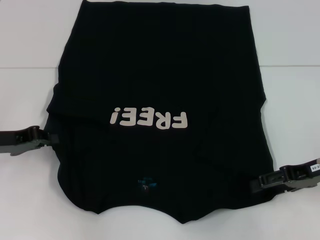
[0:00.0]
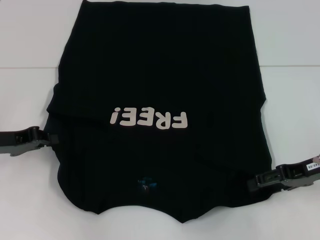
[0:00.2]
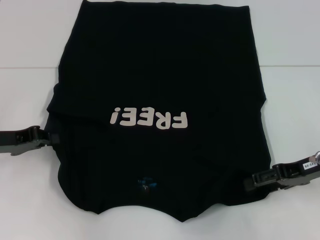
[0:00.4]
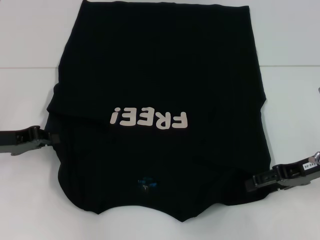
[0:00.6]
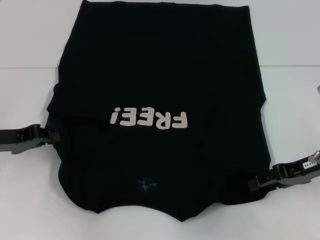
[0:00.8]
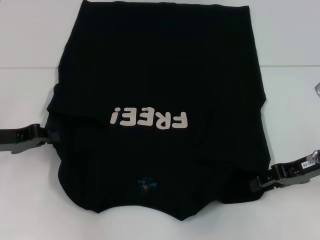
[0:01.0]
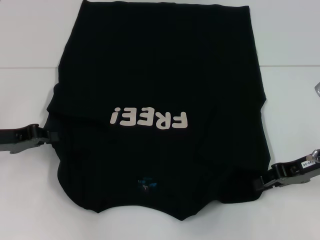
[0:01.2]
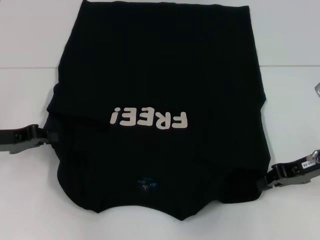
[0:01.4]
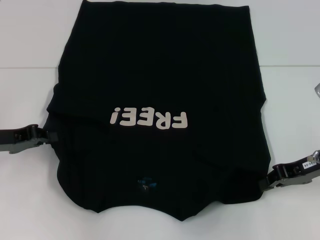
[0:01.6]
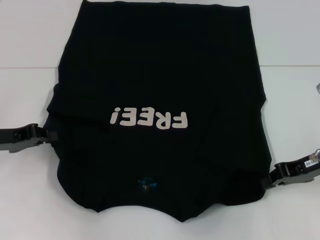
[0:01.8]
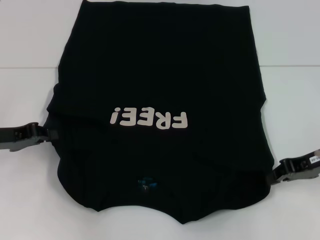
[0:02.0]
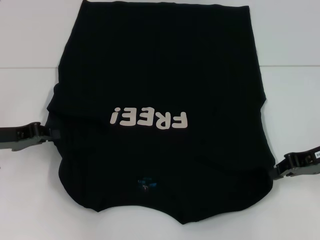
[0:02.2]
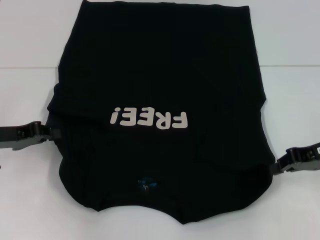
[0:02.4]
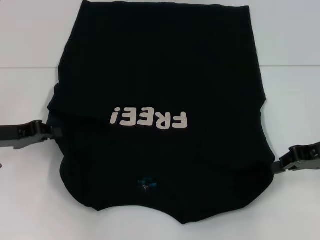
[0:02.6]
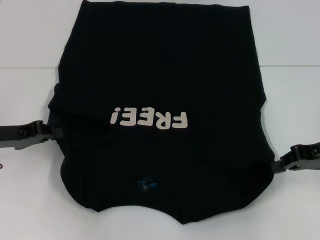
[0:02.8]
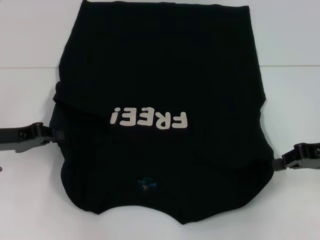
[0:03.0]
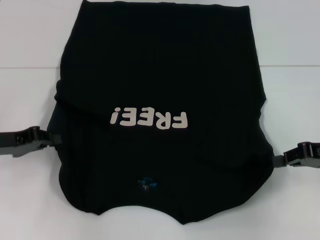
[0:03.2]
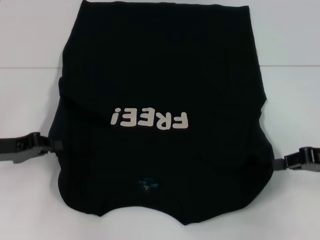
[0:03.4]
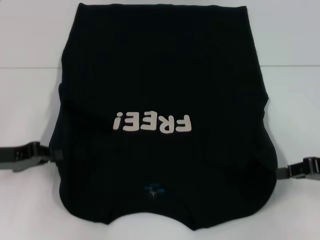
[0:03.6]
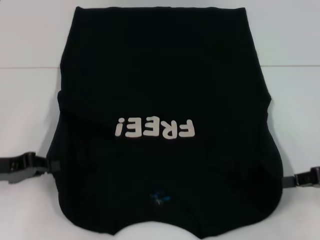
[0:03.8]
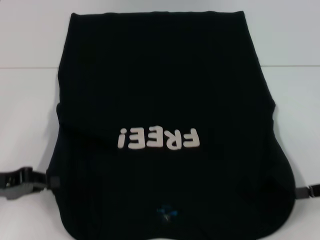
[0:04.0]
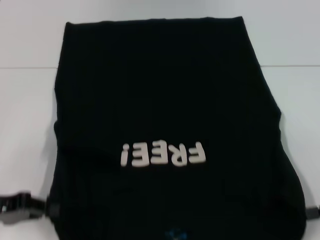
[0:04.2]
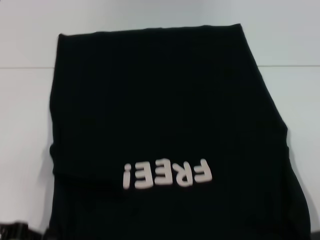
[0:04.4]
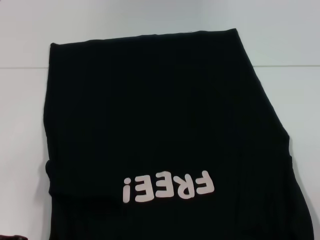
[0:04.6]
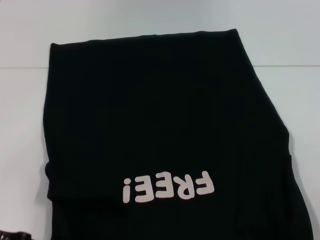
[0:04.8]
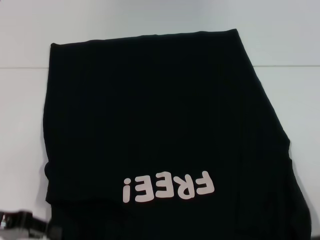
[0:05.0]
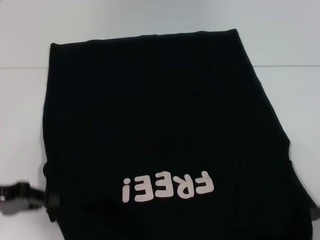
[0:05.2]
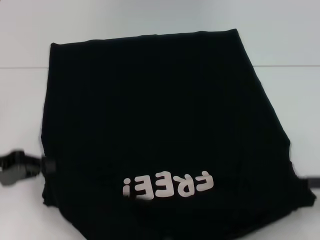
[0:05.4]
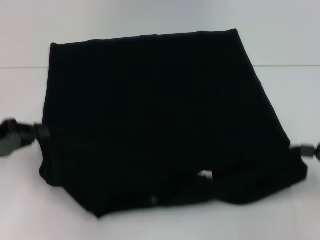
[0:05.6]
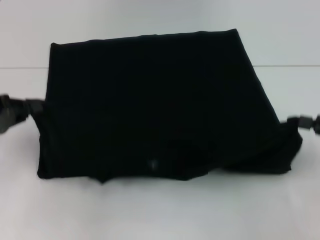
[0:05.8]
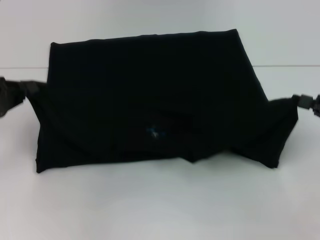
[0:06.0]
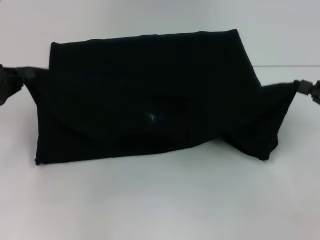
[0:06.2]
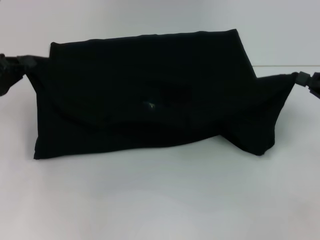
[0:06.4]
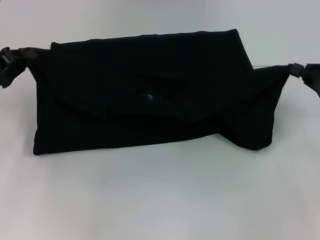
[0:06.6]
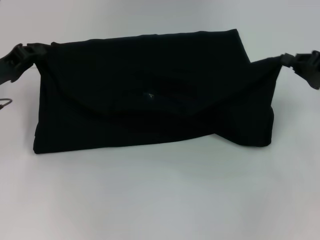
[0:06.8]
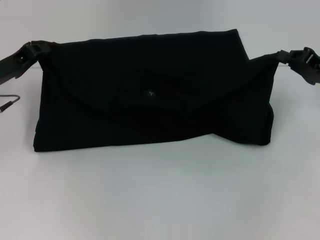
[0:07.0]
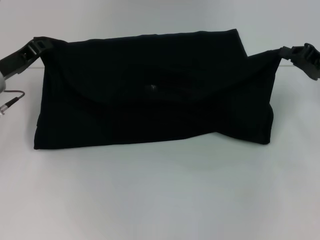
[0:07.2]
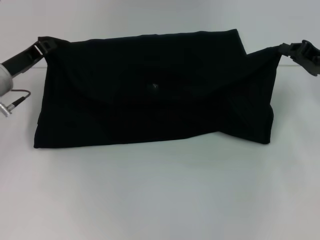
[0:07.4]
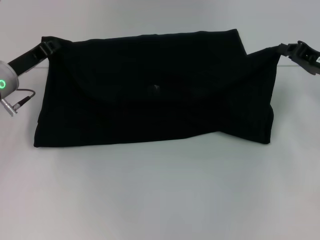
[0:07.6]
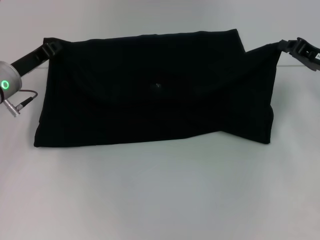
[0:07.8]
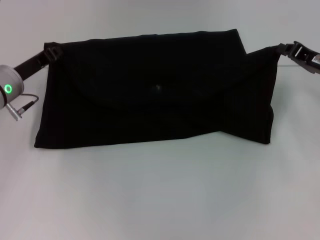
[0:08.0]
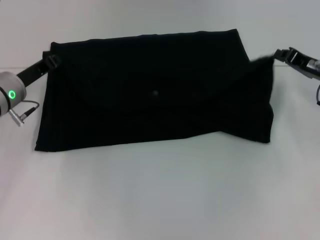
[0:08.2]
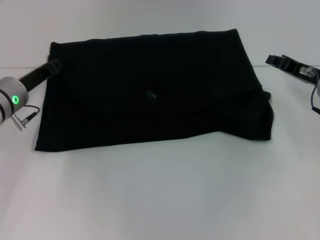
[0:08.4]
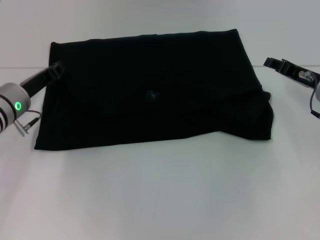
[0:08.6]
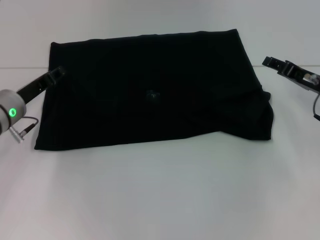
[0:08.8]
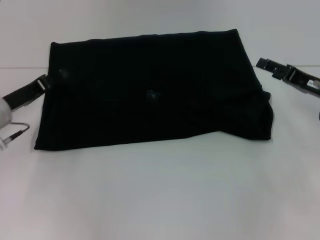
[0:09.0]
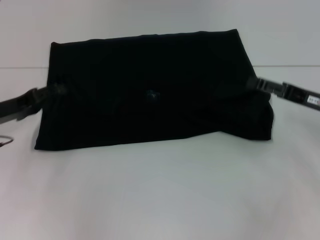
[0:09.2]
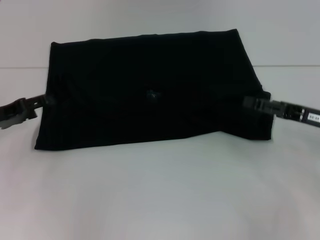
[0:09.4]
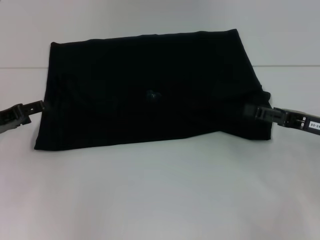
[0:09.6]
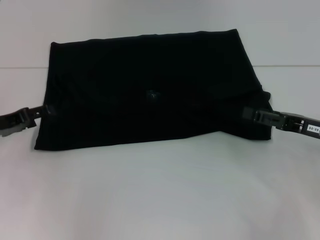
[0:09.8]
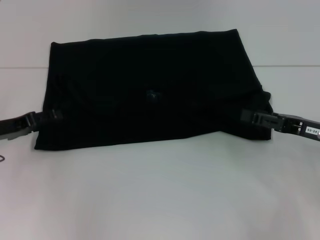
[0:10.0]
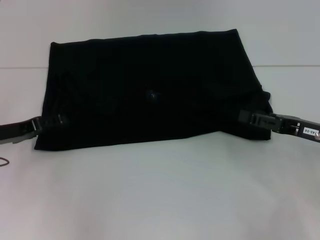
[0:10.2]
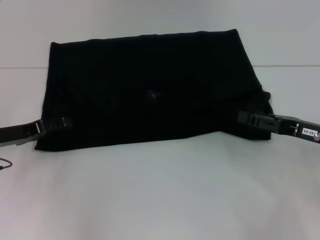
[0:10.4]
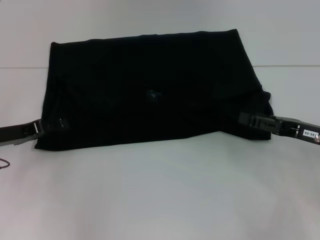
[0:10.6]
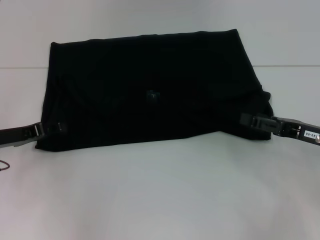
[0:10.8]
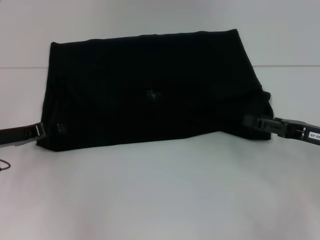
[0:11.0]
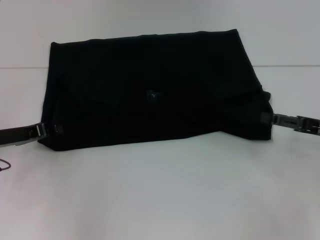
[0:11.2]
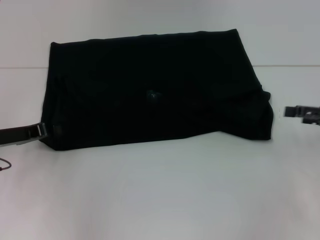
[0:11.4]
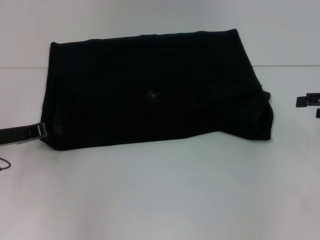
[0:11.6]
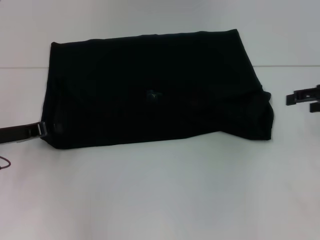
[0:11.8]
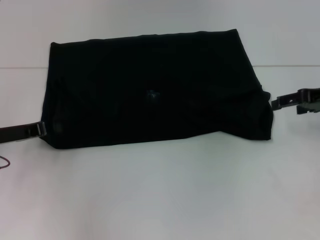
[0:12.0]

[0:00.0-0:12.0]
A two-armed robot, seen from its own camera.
Step, 0:00.0 to 0:02.4: Grab the bottom right corner with your right hand.
Step, 0:02.6 to 0:08.4: Fold the clothes with your left hand.
Step, 0:02.6 to 0:08.4: Fold the clothes with your right hand.
0:00.0 to 0:01.6: The right gripper closes its fingers.
0:01.6 to 0:03.0: The grippers stay close to where they were, moving slightly.
0:03.0 to 0:04.4: The left gripper travels backward by approximately 10 cm; the right gripper travels backward and to the right by approximately 10 cm.
0:04.4 to 0:06.0: The two grippers go some 10 cm forward.
0:06.0 to 0:07.6: The left gripper goes some 10 cm to the right and forward; the right gripper goes some 10 cm forward and to the left.
0:07.6 to 0:09.0: The left gripper moves roughly 5 cm, and opens up. The right gripper opens its fingers.
0:09.0 to 0:10.4: The right gripper shifts about 5 cm backward, and opens its fingers.
0:10.4 to 0:12.0: The left gripper closes, while the right gripper travels upward and forward by about 10 cm.

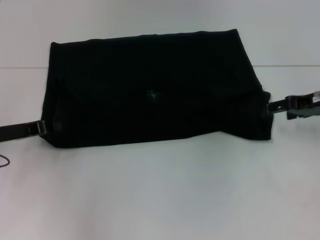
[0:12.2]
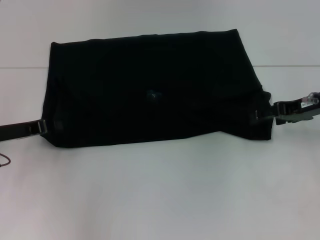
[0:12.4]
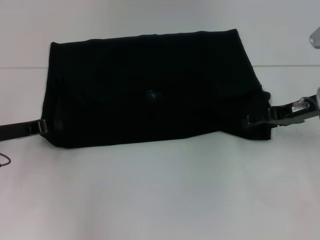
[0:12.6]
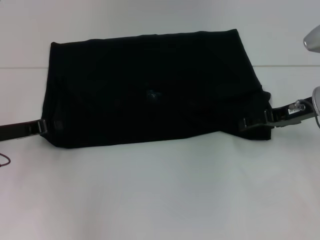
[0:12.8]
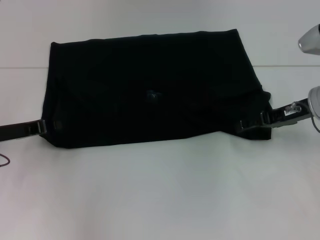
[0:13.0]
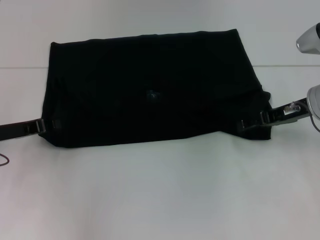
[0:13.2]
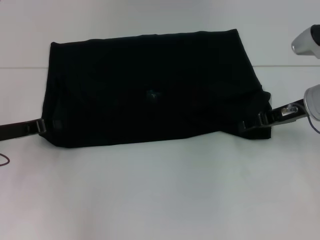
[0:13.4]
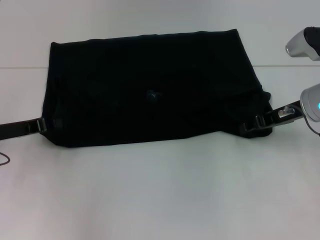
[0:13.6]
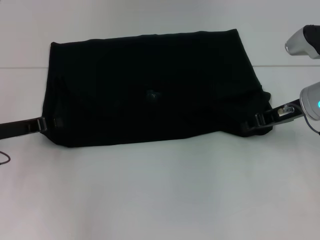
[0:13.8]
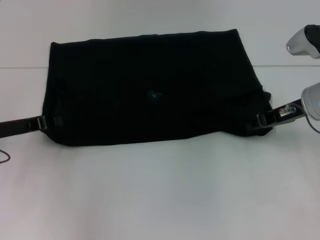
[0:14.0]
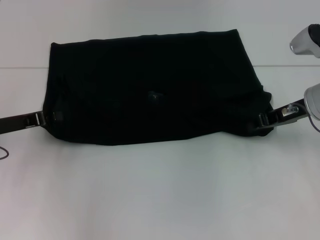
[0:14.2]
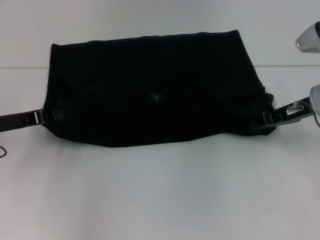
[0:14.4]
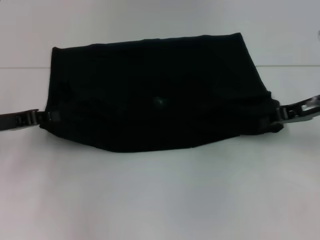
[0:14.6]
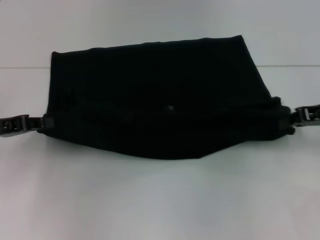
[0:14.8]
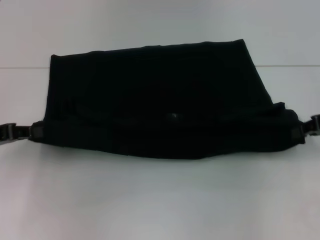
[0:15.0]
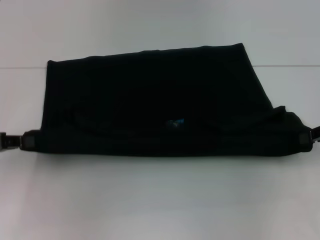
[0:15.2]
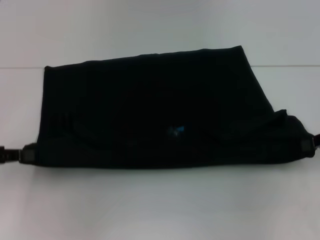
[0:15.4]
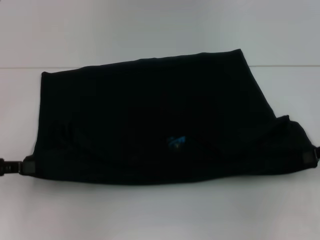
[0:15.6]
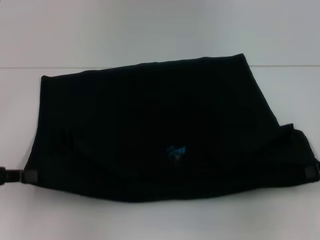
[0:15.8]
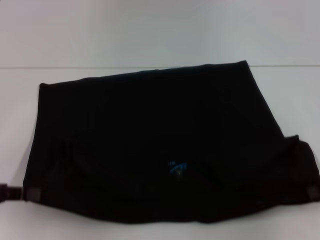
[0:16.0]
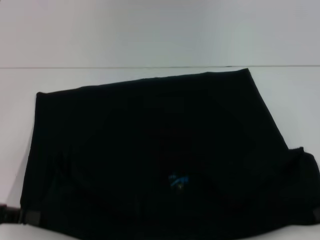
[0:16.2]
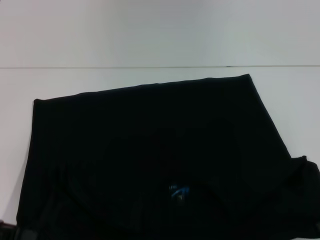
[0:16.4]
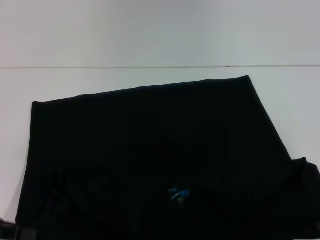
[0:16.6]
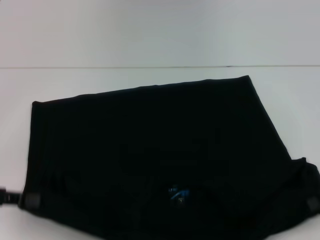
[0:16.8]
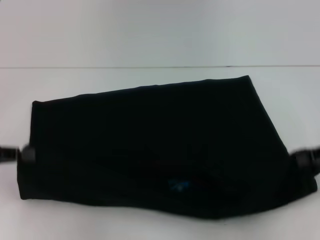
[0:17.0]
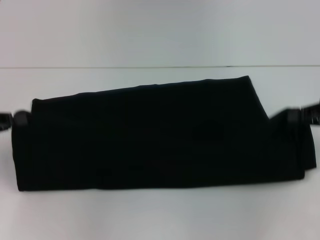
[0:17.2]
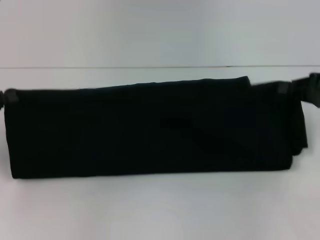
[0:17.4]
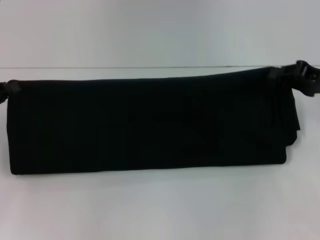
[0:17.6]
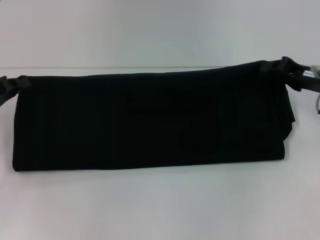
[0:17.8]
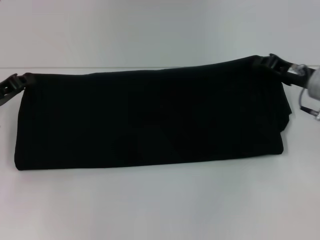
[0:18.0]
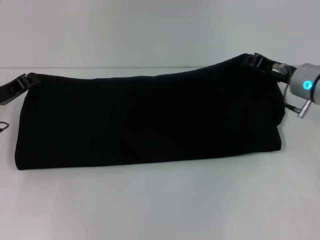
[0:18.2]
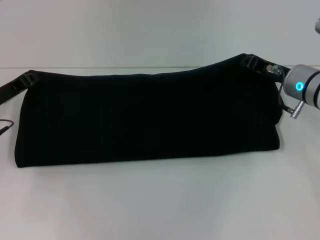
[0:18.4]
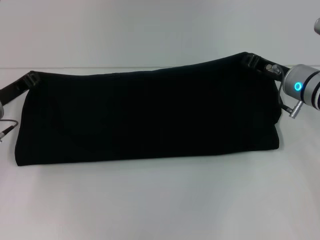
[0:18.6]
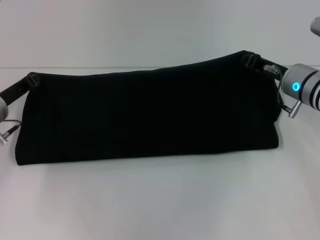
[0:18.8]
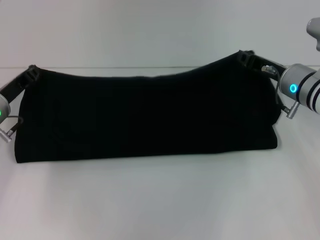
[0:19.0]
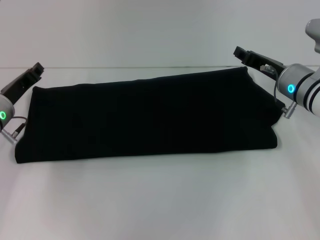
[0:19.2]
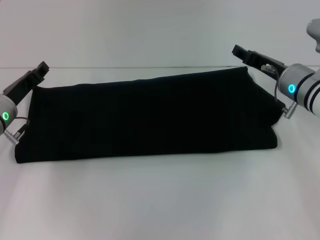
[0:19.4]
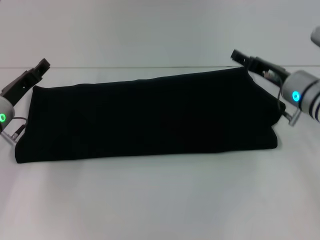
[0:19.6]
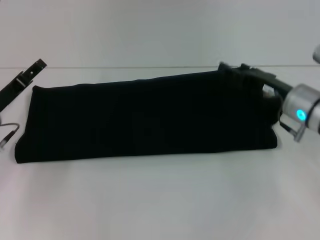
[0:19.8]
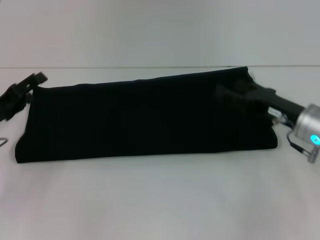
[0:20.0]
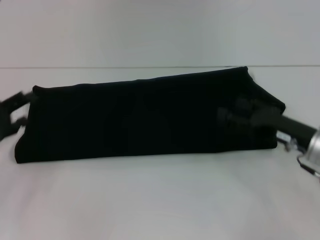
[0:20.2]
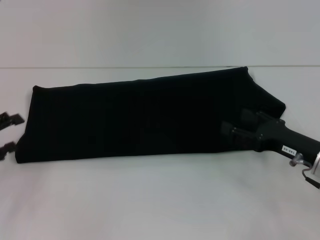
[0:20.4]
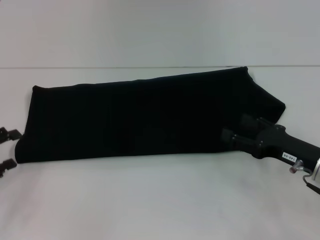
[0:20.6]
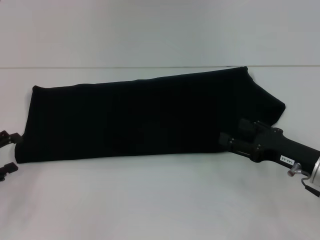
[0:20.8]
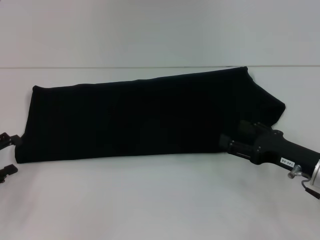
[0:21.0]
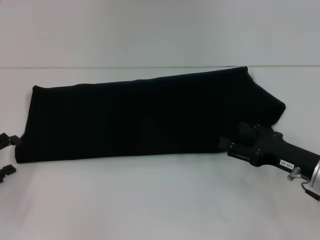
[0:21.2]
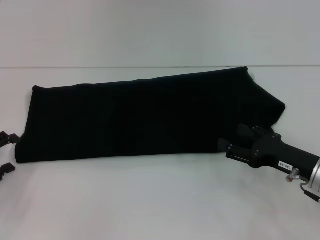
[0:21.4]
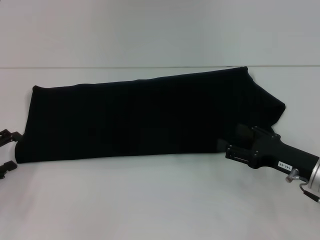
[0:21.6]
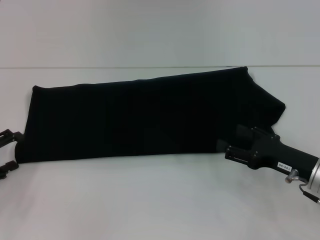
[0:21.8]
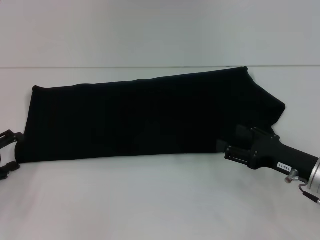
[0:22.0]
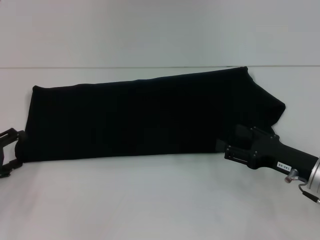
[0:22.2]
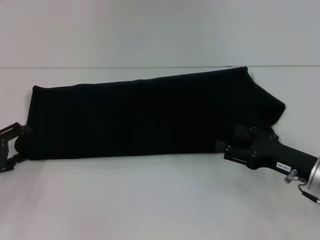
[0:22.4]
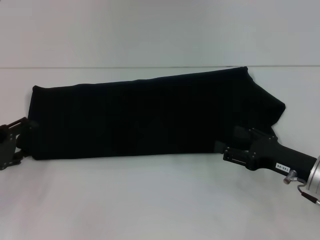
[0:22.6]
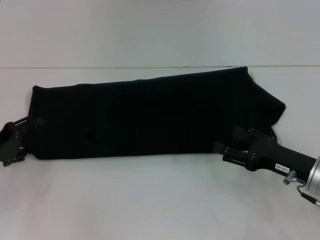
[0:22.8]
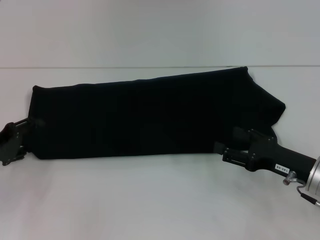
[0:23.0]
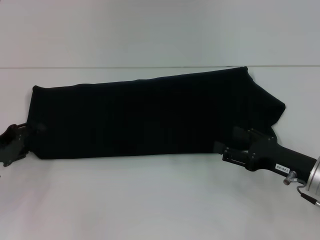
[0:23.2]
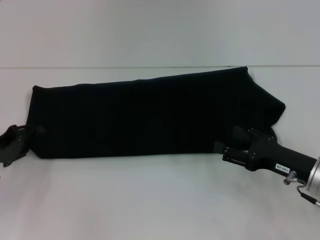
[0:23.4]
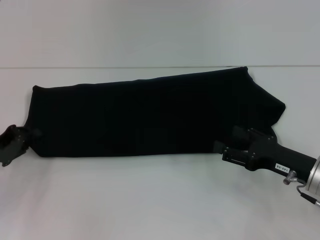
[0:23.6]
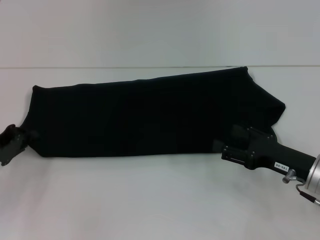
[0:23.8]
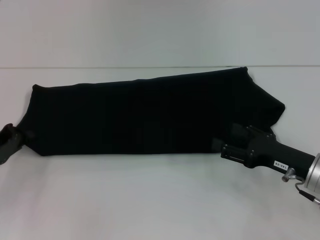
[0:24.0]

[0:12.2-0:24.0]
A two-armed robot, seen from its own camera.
Step, 0:12.2 to 0:16.4: Pull the clothes with your left hand.
Step, 0:12.2 to 0:16.4: Pull the clothes with your right hand.
Step, 0:16.6 to 0:19.6: Fold the clothes with your right hand.
0:12.2 to 0:13.6: The right gripper moves to the left, some 5 cm.
0:13.6 to 0:15.2: The right gripper shifts about 10 cm to the right and backward, and closes up. The left gripper goes approximately 5 cm to the left.
0:15.2 to 0:16.6: Both grippers move backward, approximately 5 cm.
0:16.6 to 0:18.2: The left gripper heads forward, covering roughly 15 cm, while the right gripper is displaced forward and to the left by roughly 15 cm.
0:18.2 to 0:19.6: The left gripper opens its fingers, while the right gripper opens up.
0:19.6 to 0:21.0: The left gripper heads backward and to the left, covering about 15 cm, and opens its fingers; the right gripper travels backward by approximately 10 cm, and opens up.
0:21.0 to 0:22.6: There are only small adjustments of the grippers.
0:22.6 to 0:24.0: The left gripper closes up.
